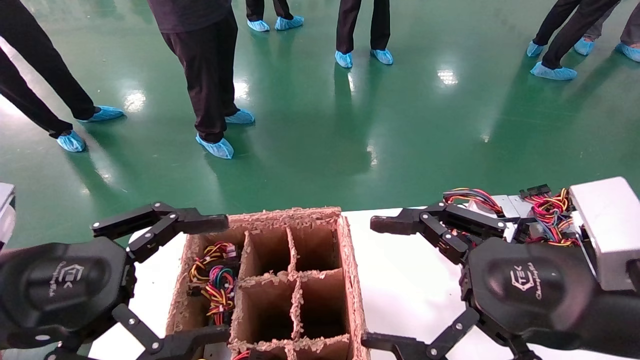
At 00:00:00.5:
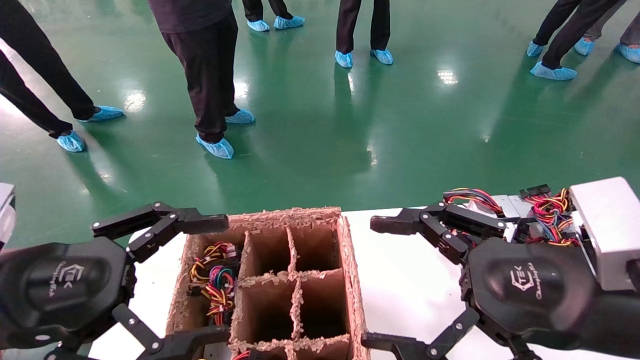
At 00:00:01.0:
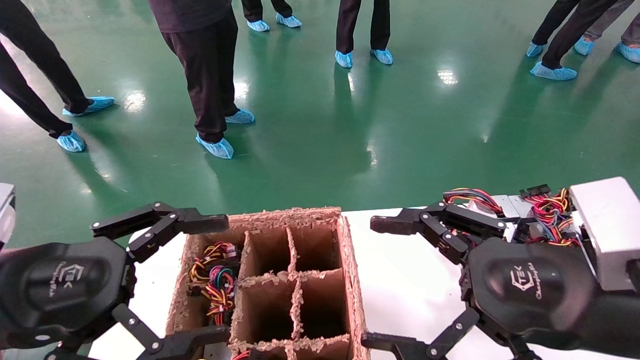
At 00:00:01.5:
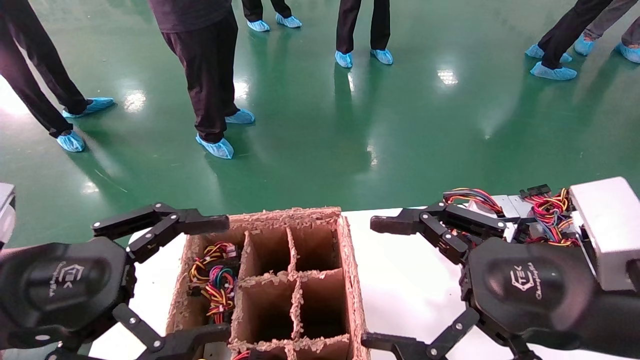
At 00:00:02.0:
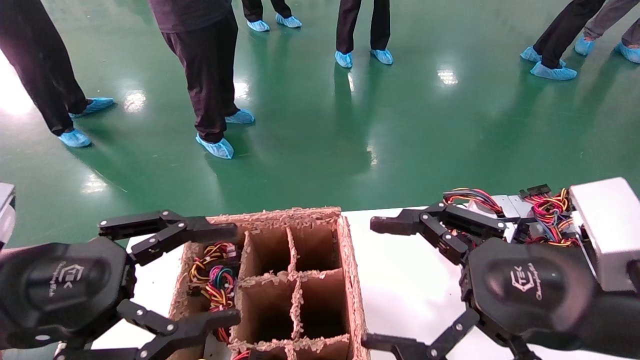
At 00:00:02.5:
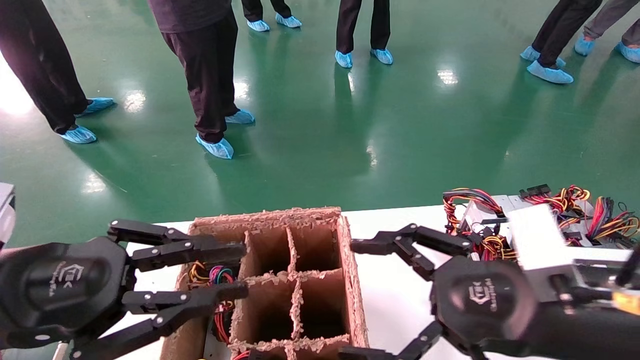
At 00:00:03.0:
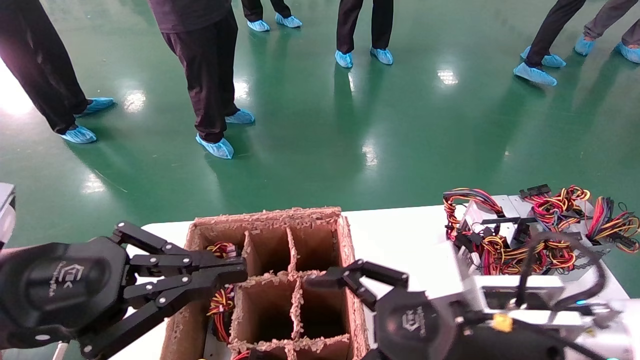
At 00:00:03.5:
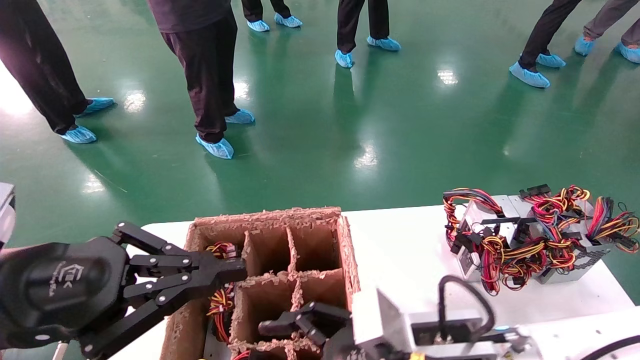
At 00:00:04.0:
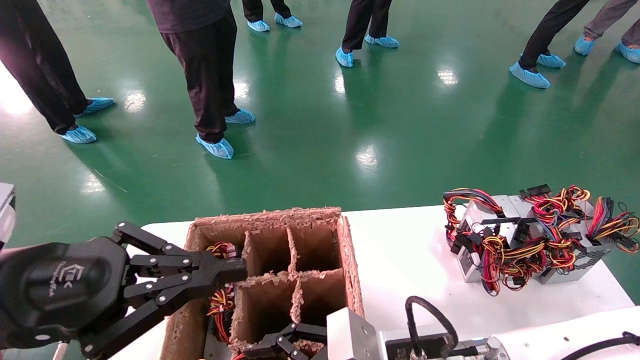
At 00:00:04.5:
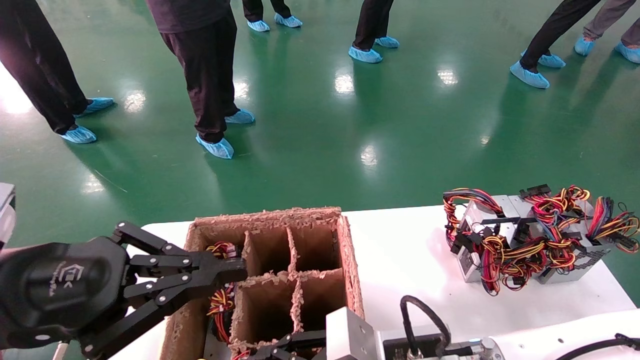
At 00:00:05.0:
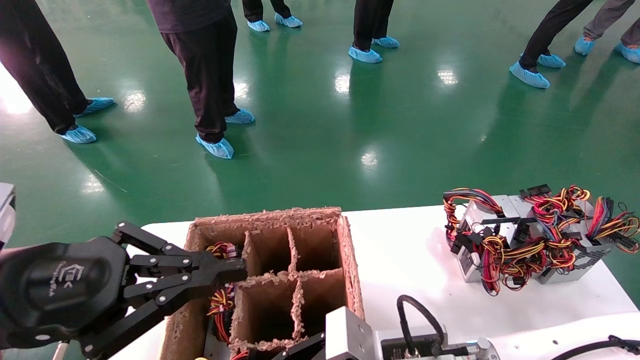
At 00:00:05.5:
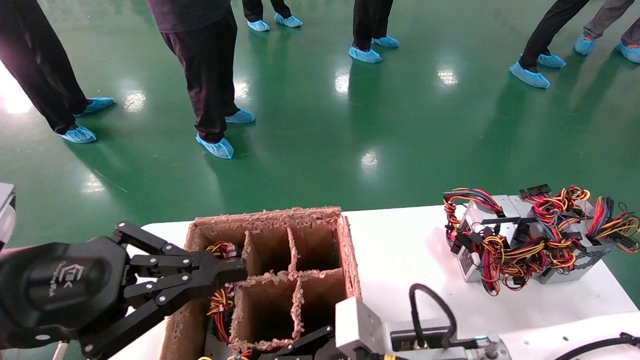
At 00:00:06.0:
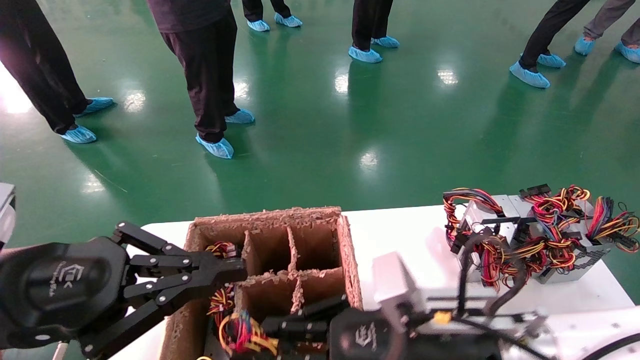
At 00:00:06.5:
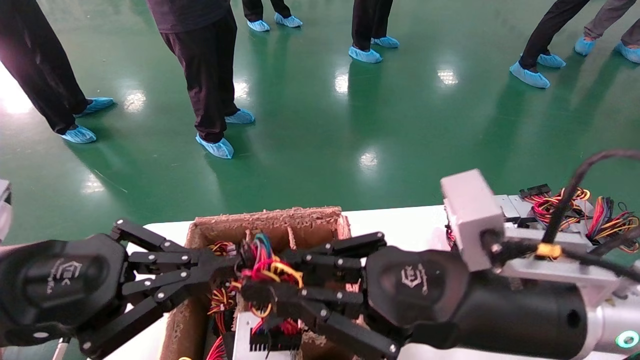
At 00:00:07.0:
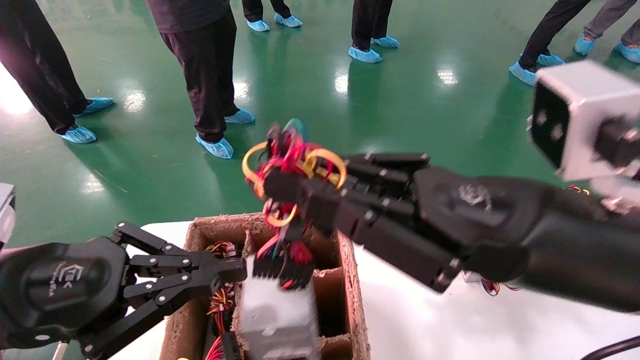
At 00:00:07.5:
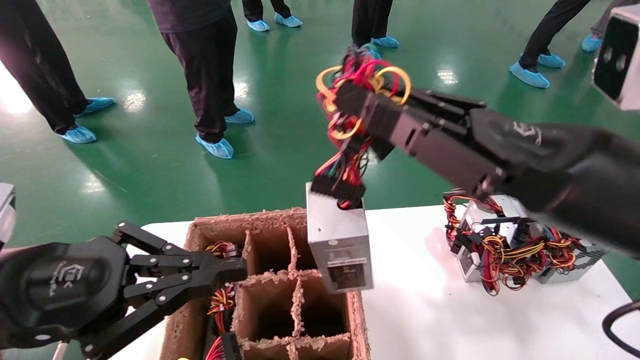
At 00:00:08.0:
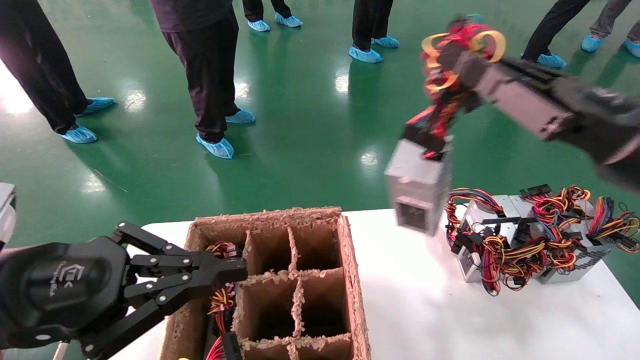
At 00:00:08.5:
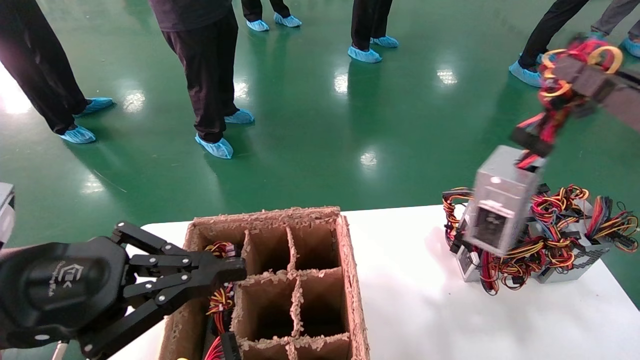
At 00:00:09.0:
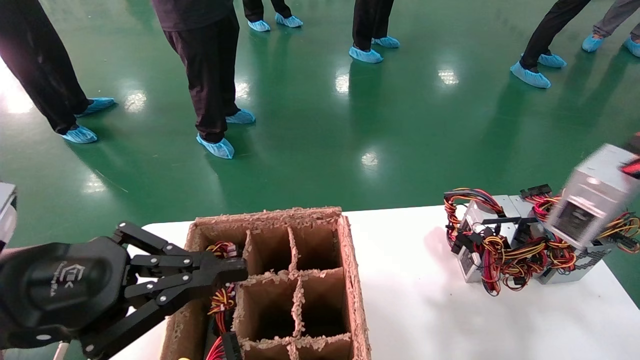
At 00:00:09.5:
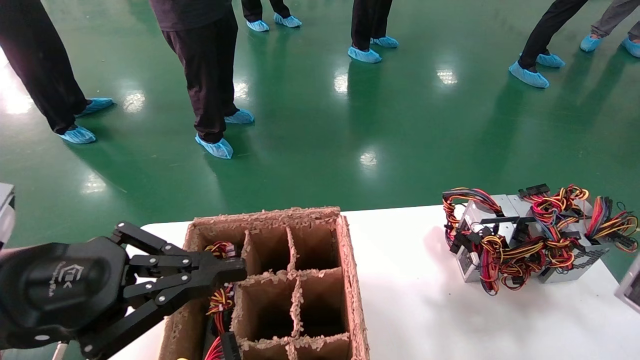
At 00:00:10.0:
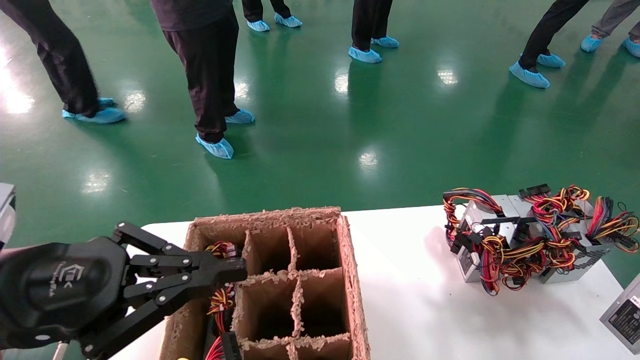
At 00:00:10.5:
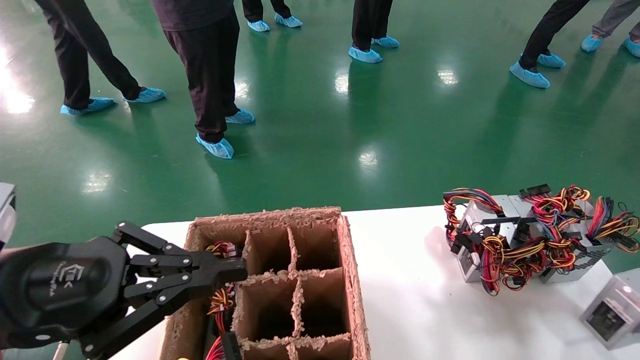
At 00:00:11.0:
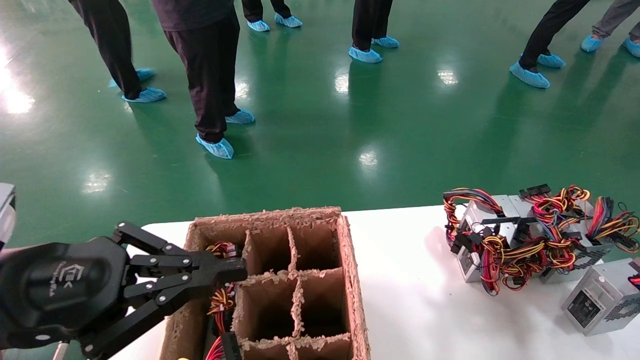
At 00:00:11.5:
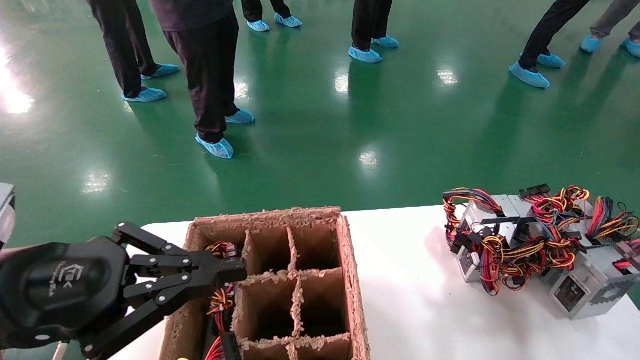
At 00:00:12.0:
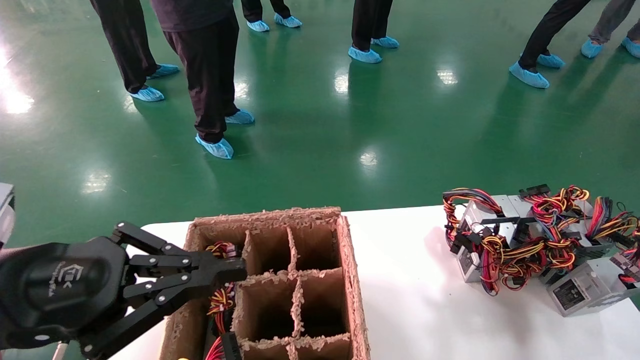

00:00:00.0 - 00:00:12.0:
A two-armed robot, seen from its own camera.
Step, 00:00:02.5 - 00:00:05.5: Grab the main unit power supply from the containment box.
00:00:00.0 - 00:00:02.0: Both grippers stay about where they are.
00:00:02.0 - 00:00:04.0: The left gripper closes up; the right gripper heads downward, to the left and forward, covering roughly 20 cm.
00:00:04.0 - 00:00:06.0: The right gripper shifts by approximately 5 cm, and closes.
00:00:06.0 - 00:00:08.0: The right gripper heads to the right and upward, covering roughly 20 cm.
00:00:08.0 - 00:00:10.0: The right gripper heads to the right, downward and backward, covering roughly 30 cm.
00:00:10.0 - 00:00:12.0: The right gripper heads forward and downward, covering about 15 cm.

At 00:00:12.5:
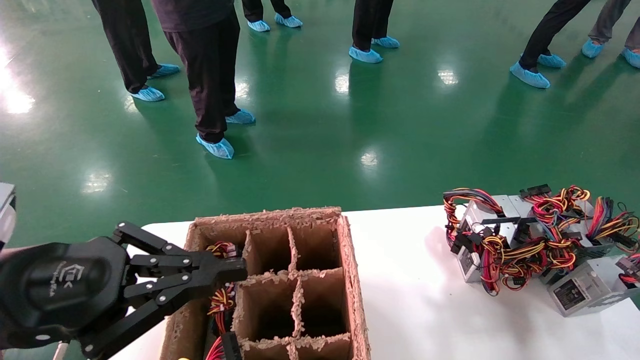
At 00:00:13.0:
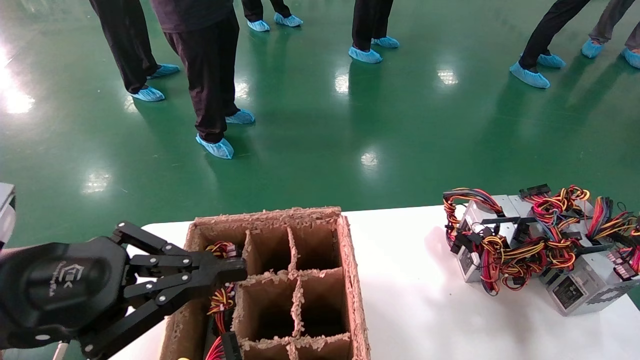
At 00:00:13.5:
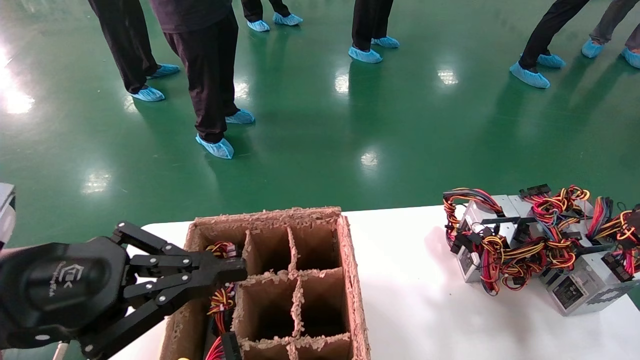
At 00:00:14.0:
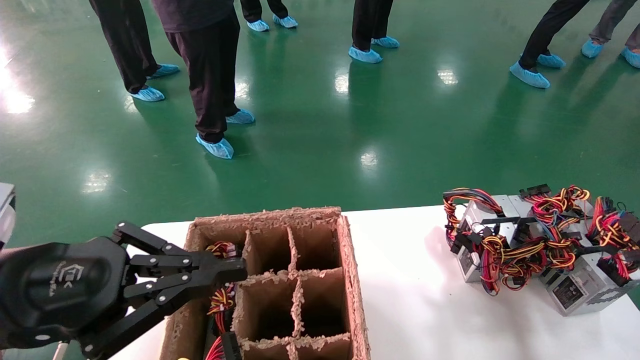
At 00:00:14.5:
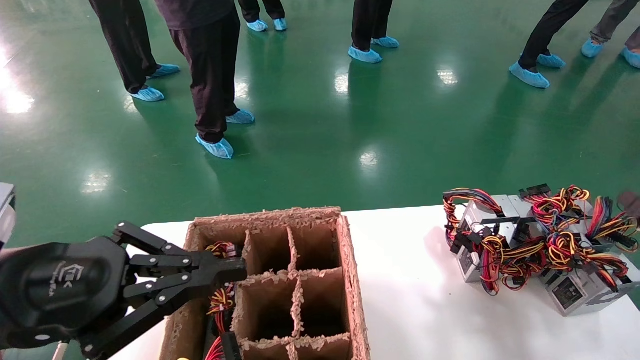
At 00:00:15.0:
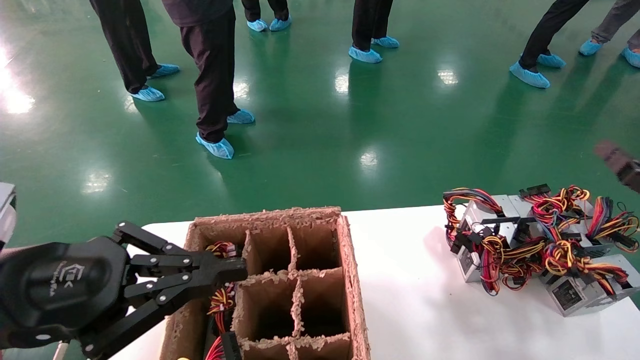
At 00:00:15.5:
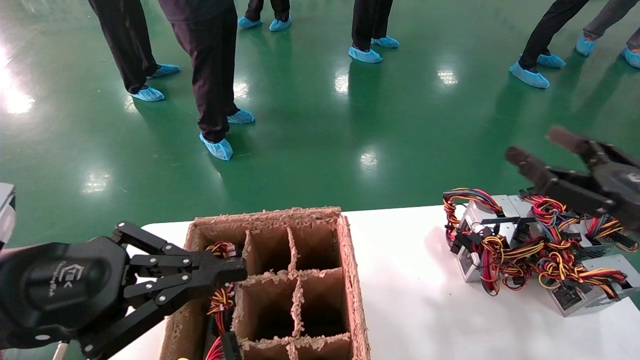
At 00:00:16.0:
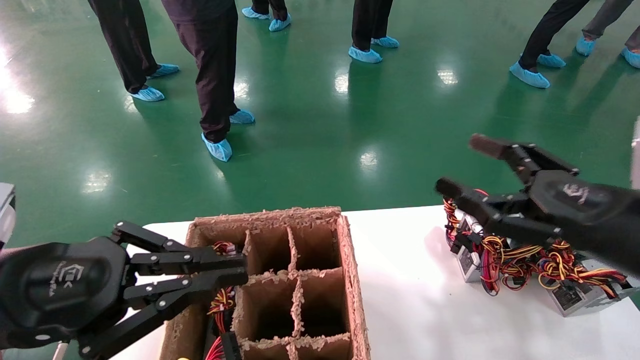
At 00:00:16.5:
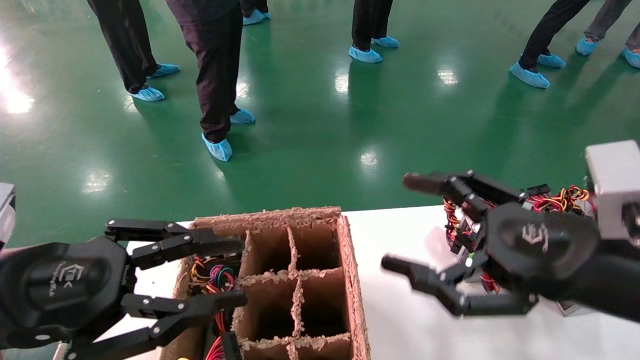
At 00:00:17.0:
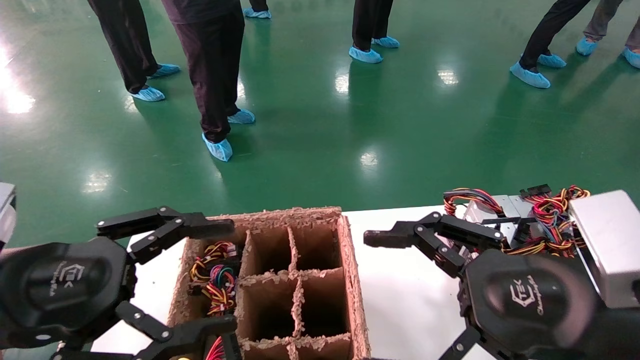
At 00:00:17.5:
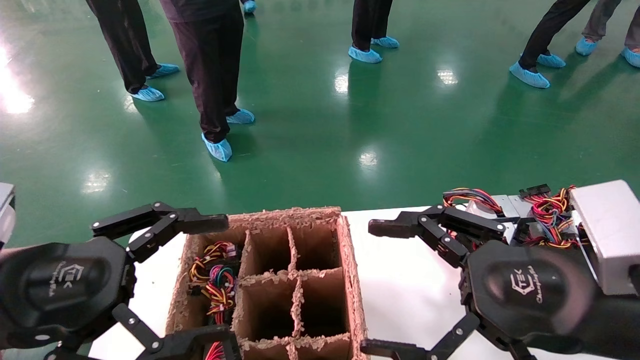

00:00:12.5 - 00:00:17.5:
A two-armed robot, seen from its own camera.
00:00:12.5 - 00:00:15.0: The right gripper is displaced upward and to the left by roughly 10 cm, and opens its fingers.
00:00:15.0 - 00:00:17.5: The left gripper opens. The right gripper travels to the left by about 20 cm.

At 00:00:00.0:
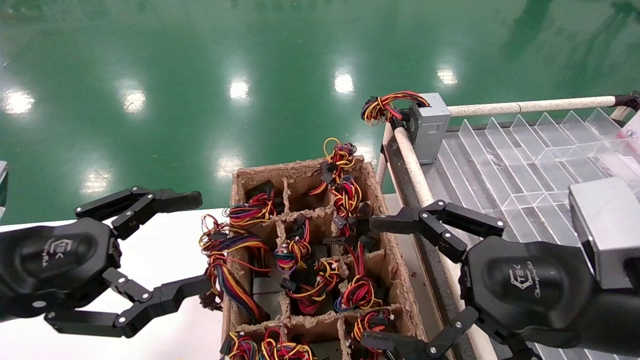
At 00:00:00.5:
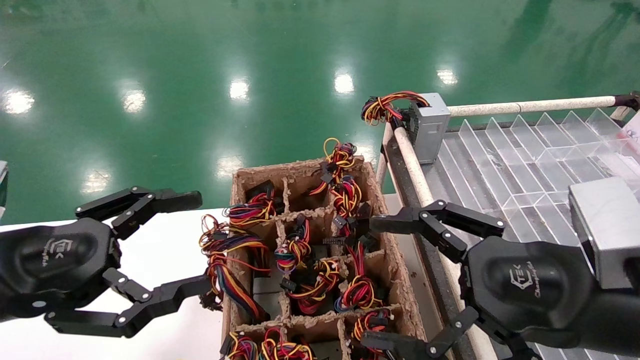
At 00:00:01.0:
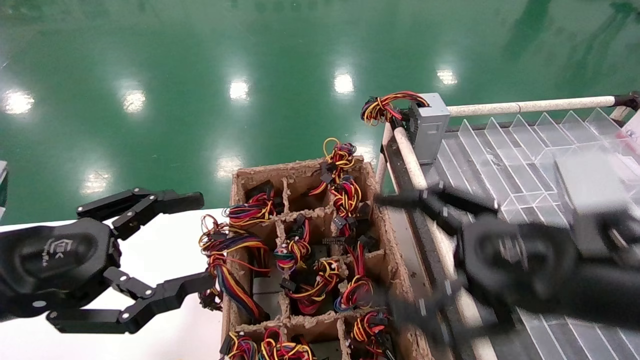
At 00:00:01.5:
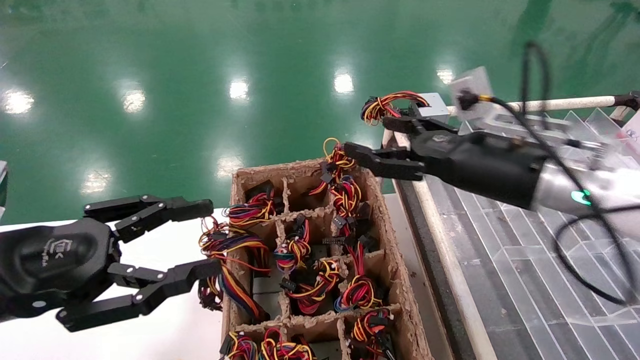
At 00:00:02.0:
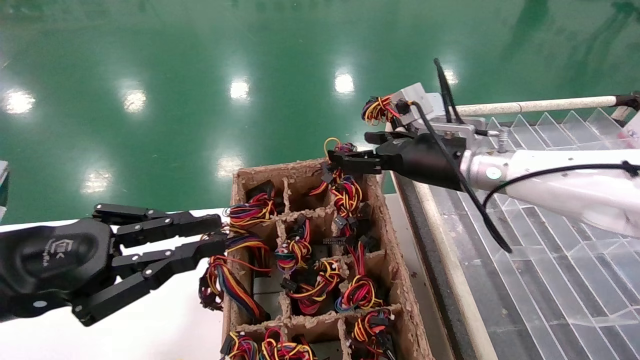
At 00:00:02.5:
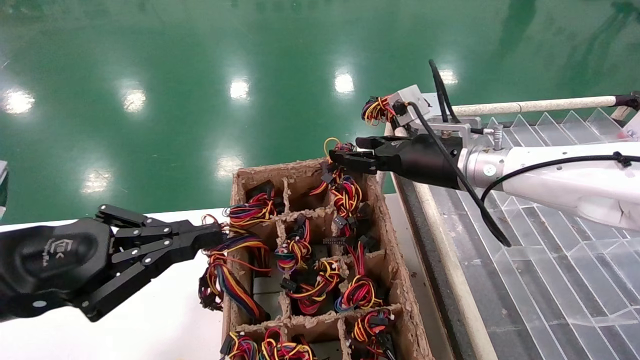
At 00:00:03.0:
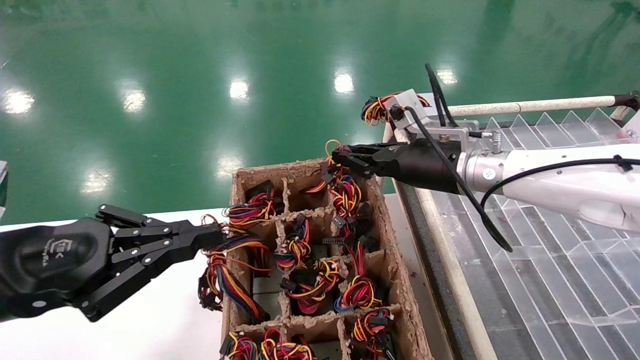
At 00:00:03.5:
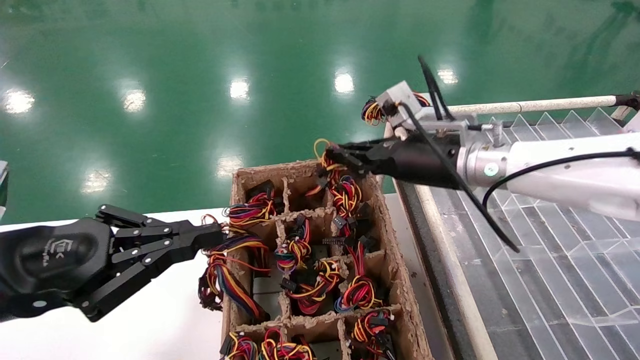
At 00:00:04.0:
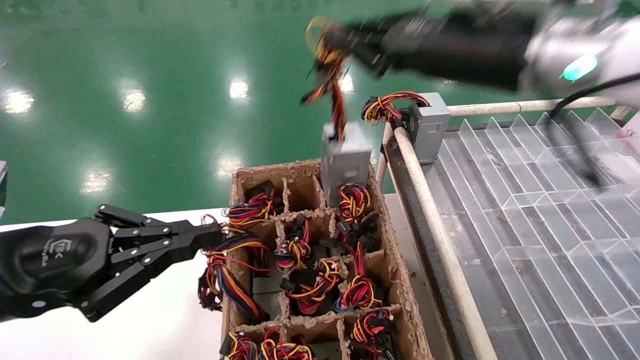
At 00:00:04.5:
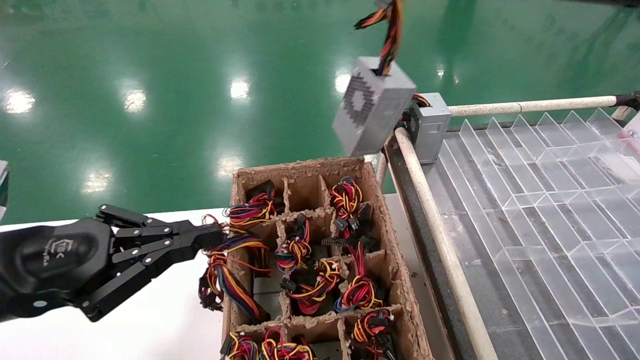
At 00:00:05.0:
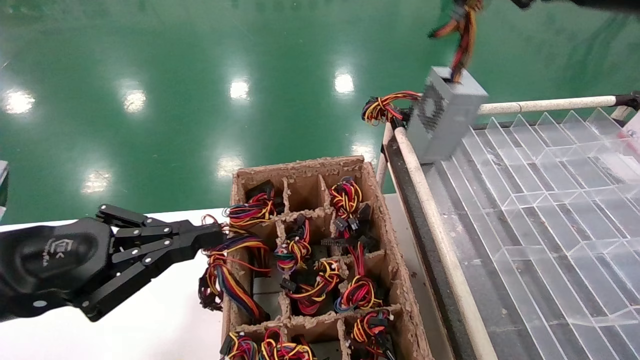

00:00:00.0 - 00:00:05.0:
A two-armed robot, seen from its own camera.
Step, 00:00:01.5 - 00:00:03.0: Grab the main unit power supply from the containment box.
00:00:00.0 - 00:00:02.5: The right gripper travels forward by about 25 cm. The left gripper closes its fingers.
00:00:02.5 - 00:00:05.0: The right gripper travels upward, backward and to the right by approximately 25 cm, and closes up.
